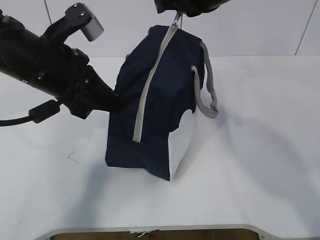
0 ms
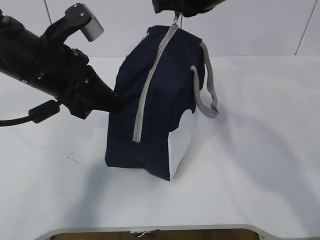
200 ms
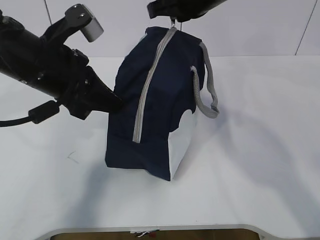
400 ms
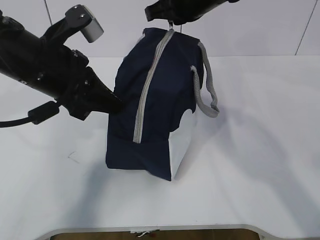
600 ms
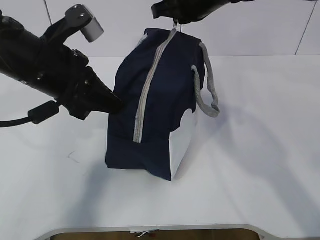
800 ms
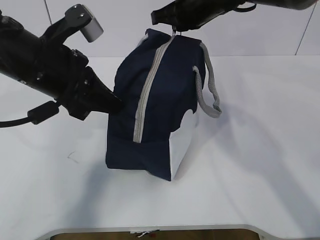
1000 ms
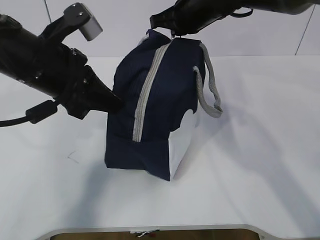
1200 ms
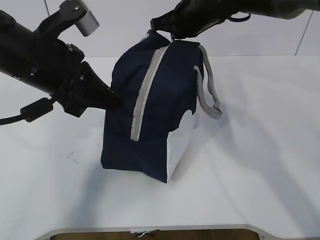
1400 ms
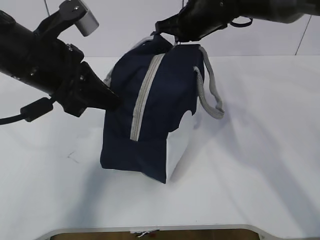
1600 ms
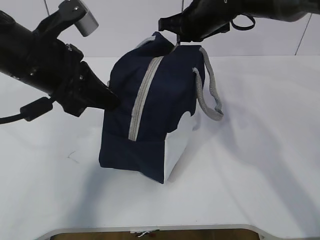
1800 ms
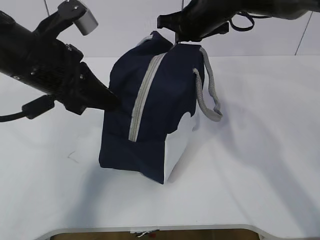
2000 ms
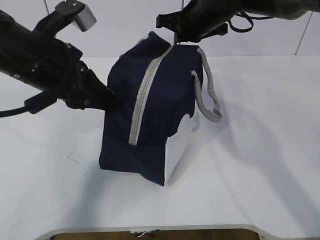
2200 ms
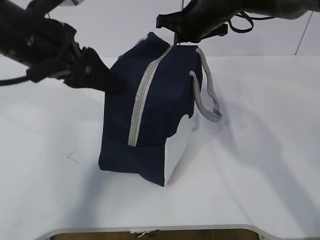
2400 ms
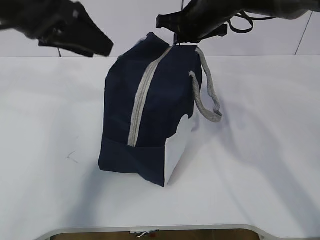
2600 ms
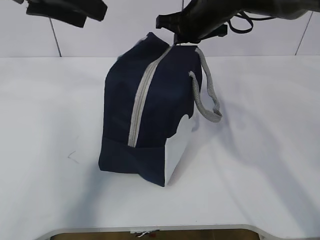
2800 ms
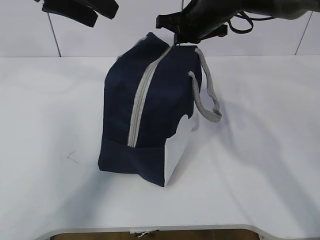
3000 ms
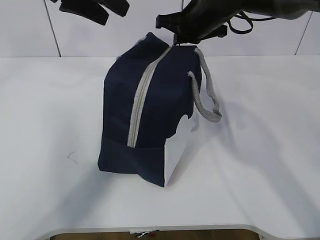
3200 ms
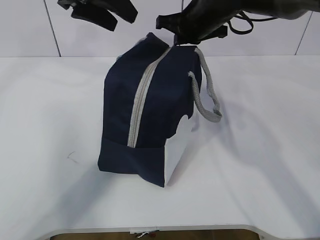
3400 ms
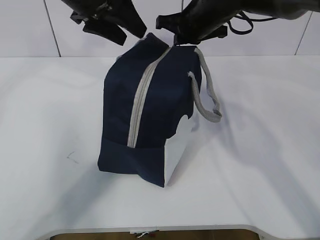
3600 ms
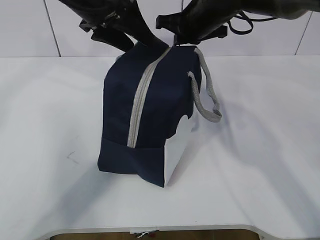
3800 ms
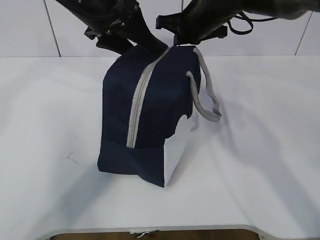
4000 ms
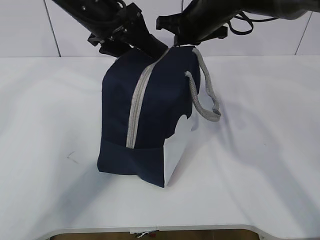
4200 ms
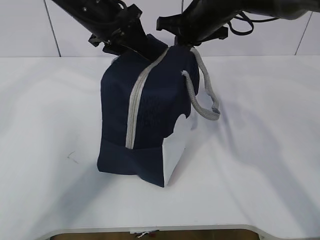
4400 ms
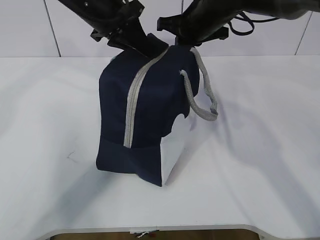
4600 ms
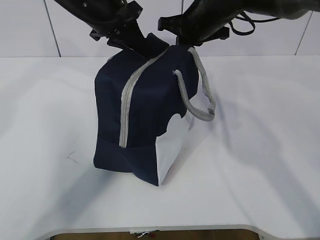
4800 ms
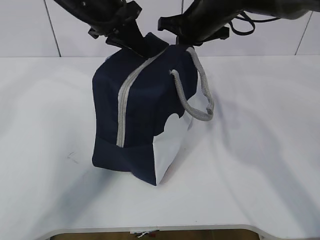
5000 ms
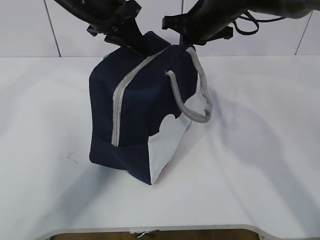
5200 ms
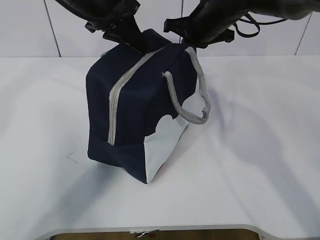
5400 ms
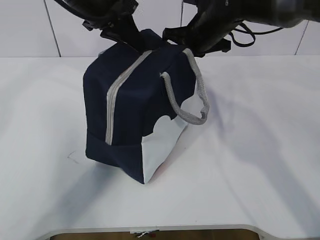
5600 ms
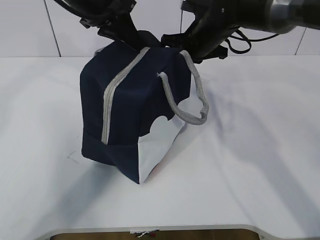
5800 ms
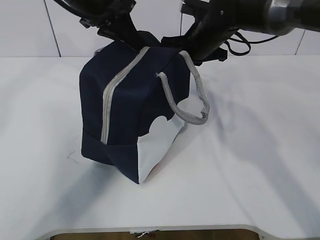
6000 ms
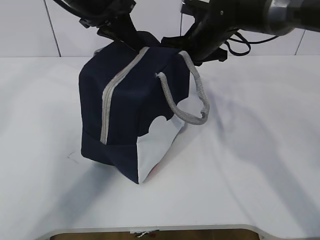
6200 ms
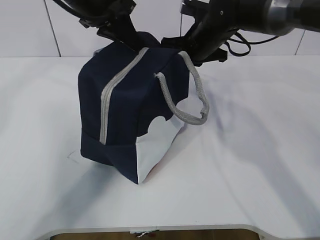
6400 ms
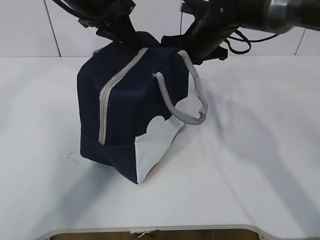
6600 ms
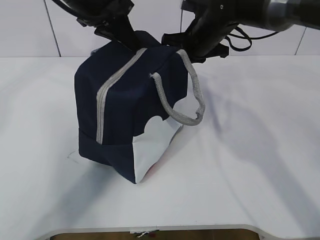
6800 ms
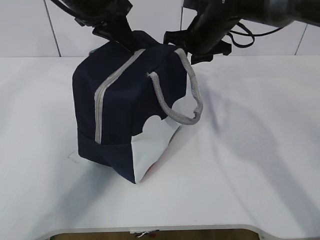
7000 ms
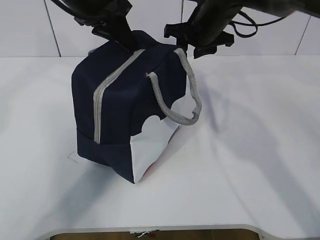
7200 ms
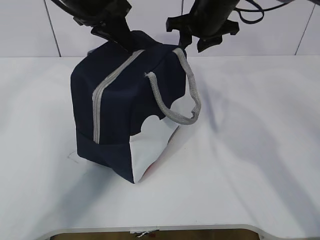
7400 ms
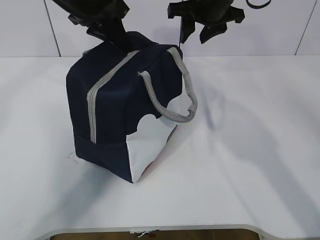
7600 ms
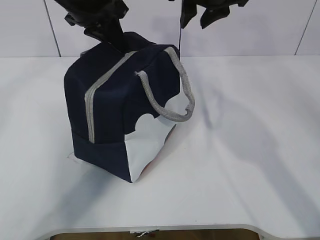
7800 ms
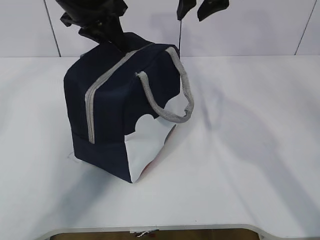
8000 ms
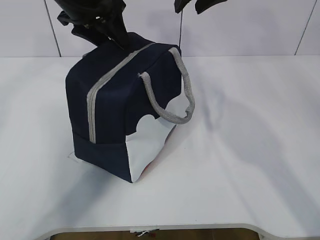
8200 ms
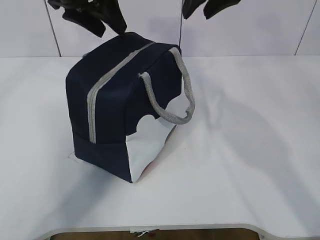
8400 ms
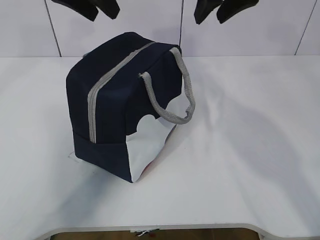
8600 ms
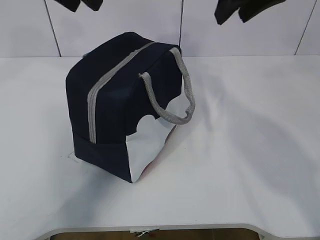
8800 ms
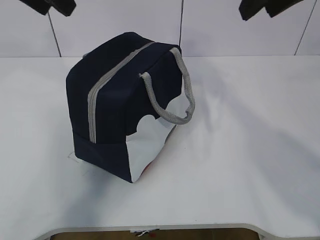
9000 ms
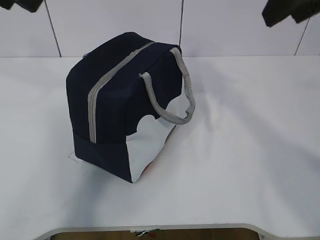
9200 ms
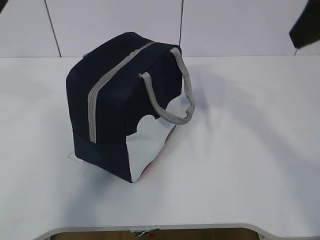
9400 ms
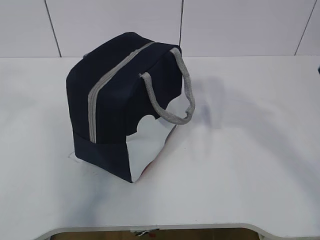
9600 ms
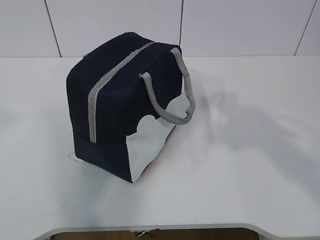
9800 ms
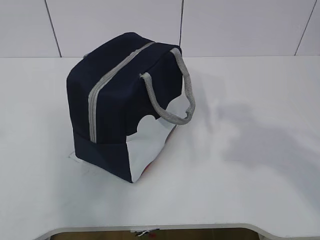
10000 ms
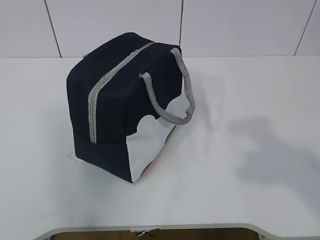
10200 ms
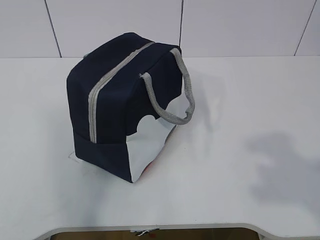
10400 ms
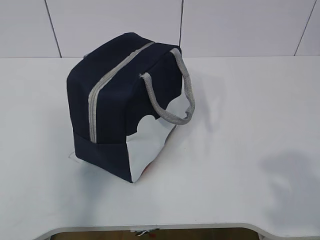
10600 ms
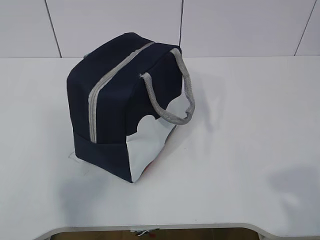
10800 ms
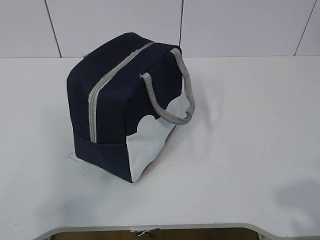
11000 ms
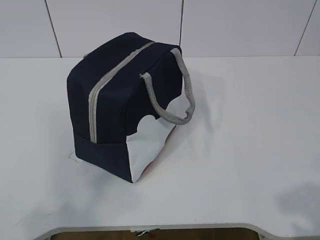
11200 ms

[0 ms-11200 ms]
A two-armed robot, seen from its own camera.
0 ms to 1600 ms: The right gripper heads forward and downward, covering roughly 15 cm.
1600 ms to 3200 ms: The left gripper goes about 15 cm forward and upward, and opens.
3200 ms to 4800 ms: The left gripper goes about 5 cm downward, and closes up.
4800 ms to 6400 ms: There are only small adjustments of the grippers.
6400 ms to 8000 ms: The left gripper opens up; the right gripper moves upward, about 15 cm, and opens.
8000 ms to 9600 ms: The left gripper travels backward, upward and to the left by about 30 cm, and opens, while the right gripper travels backward by approximately 25 cm.
9600 ms to 11200 ms: The two grippers go about 25 cm backward and downward.

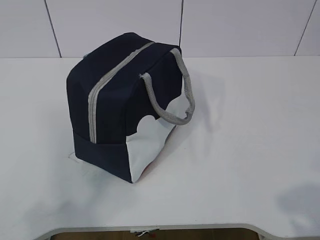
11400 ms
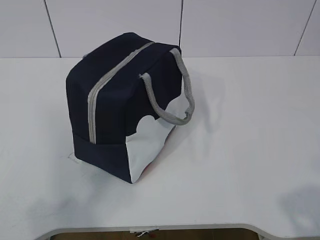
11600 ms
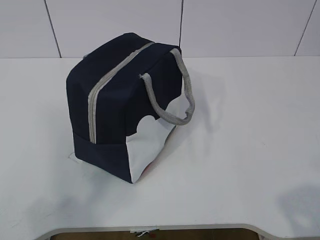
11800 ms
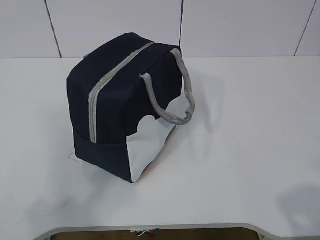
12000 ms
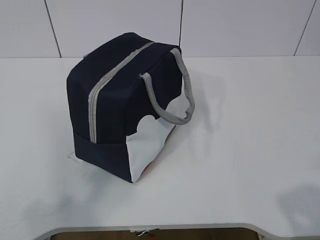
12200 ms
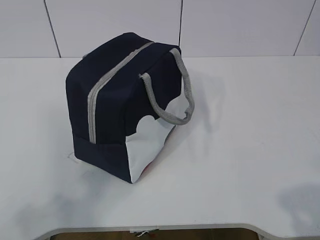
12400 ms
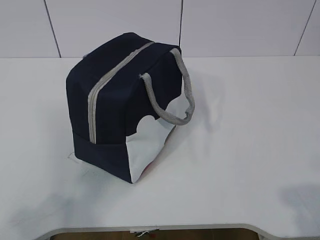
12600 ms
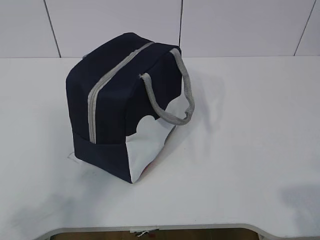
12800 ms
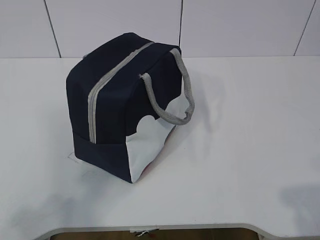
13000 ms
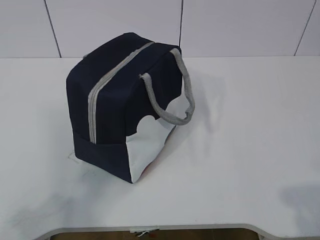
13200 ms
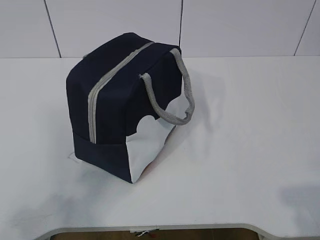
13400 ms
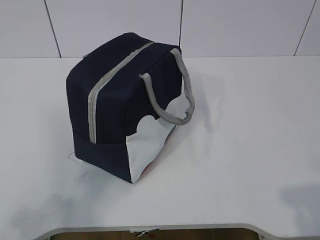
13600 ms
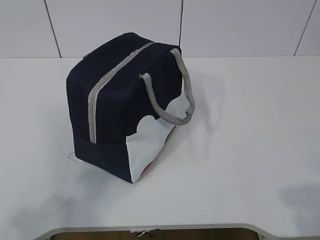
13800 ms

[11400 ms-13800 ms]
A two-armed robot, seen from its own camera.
12600 ms to 13800 ms: Both grippers stay put.

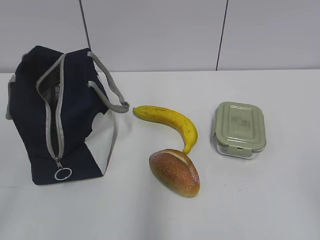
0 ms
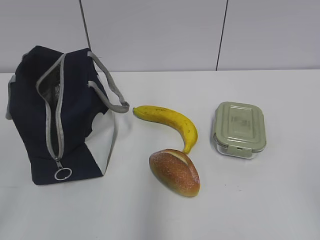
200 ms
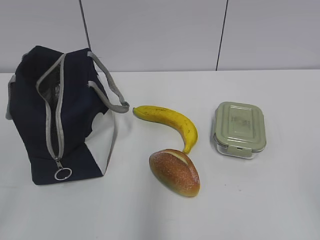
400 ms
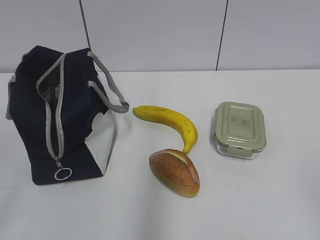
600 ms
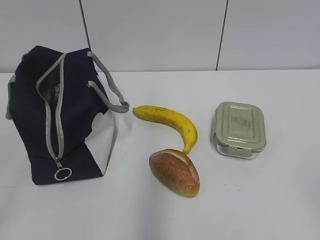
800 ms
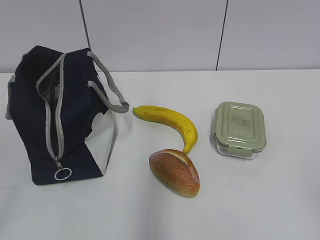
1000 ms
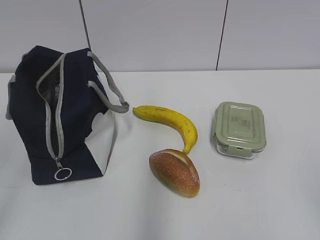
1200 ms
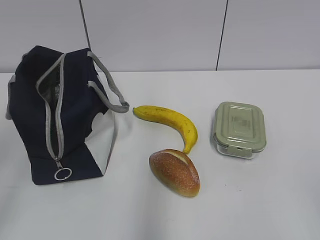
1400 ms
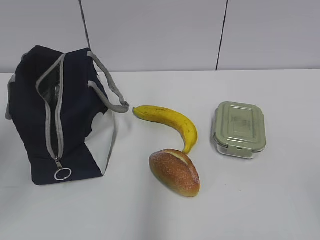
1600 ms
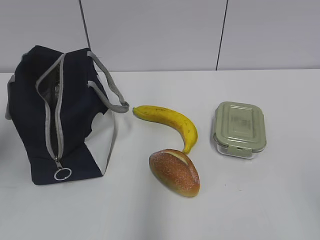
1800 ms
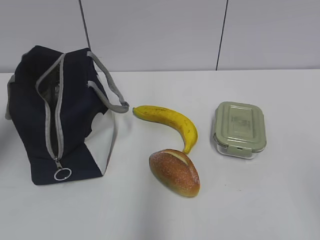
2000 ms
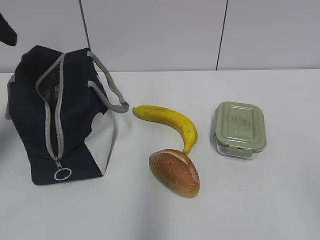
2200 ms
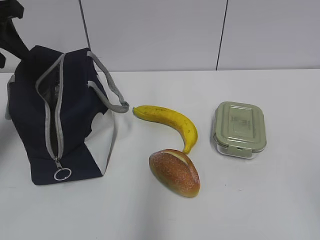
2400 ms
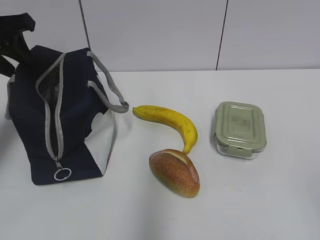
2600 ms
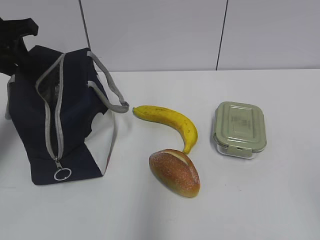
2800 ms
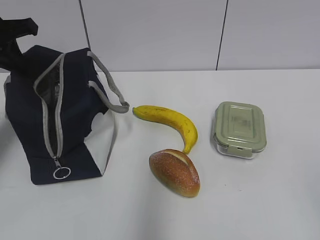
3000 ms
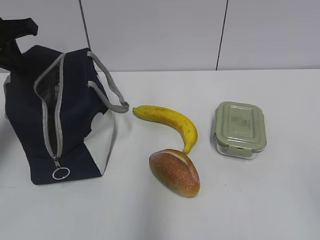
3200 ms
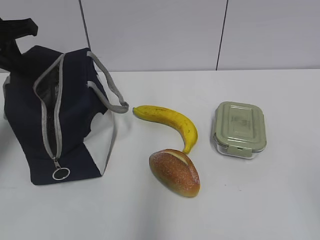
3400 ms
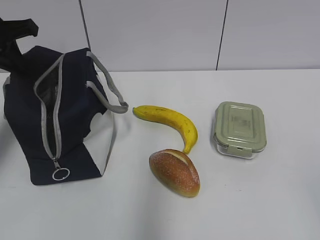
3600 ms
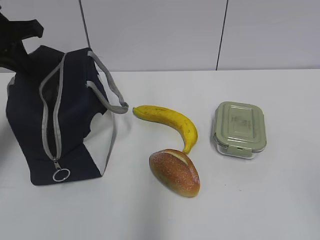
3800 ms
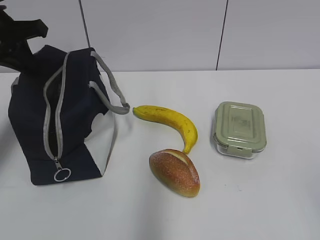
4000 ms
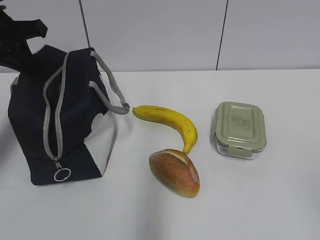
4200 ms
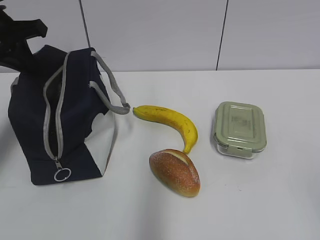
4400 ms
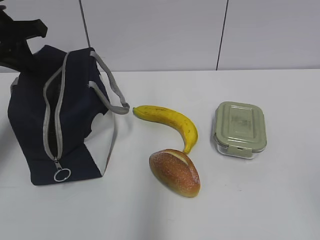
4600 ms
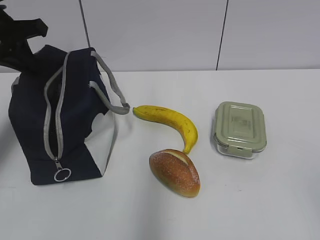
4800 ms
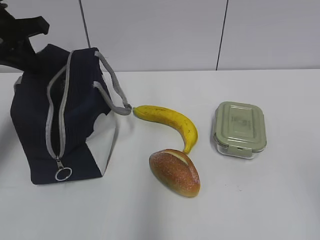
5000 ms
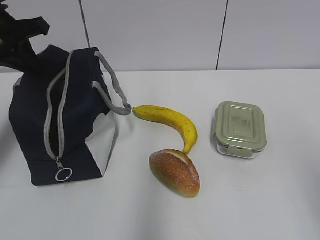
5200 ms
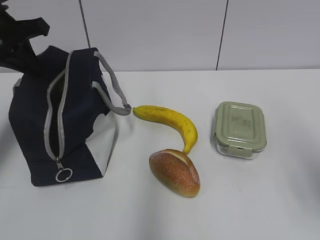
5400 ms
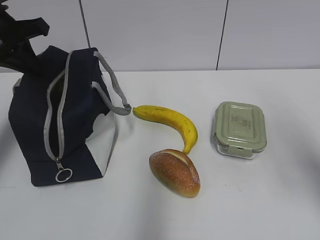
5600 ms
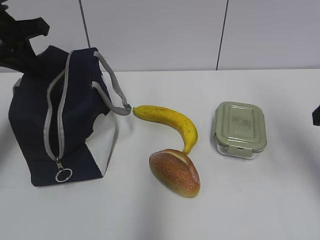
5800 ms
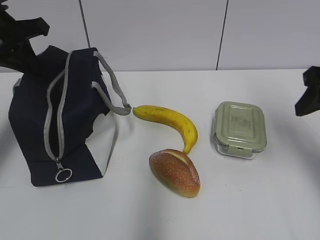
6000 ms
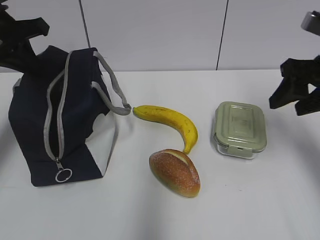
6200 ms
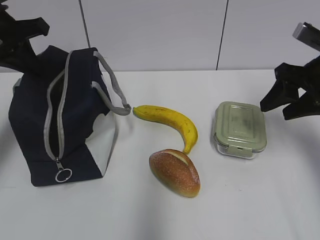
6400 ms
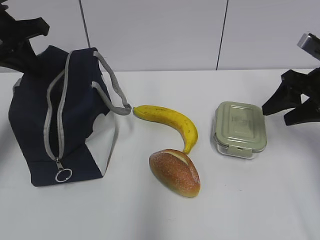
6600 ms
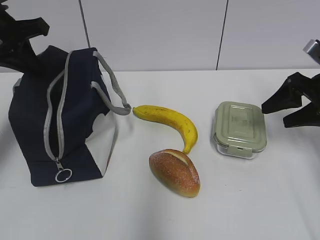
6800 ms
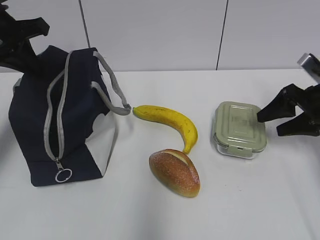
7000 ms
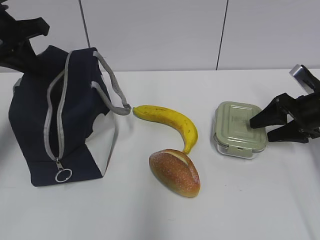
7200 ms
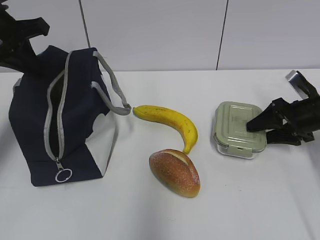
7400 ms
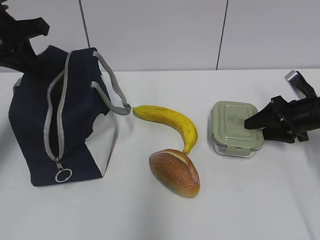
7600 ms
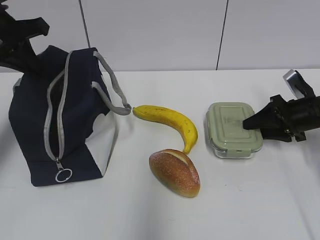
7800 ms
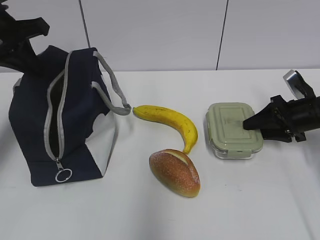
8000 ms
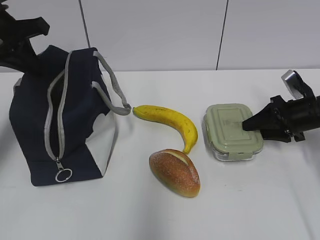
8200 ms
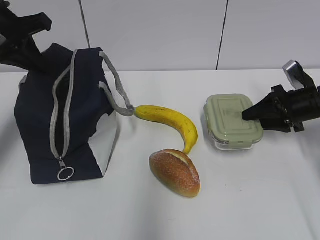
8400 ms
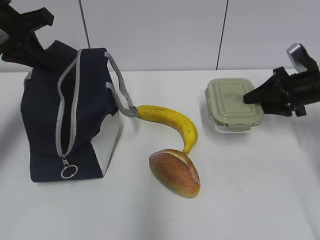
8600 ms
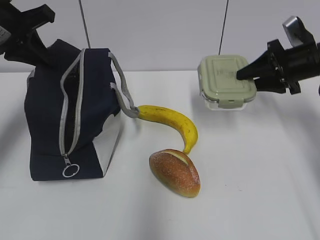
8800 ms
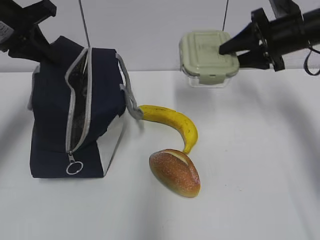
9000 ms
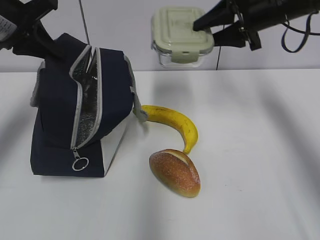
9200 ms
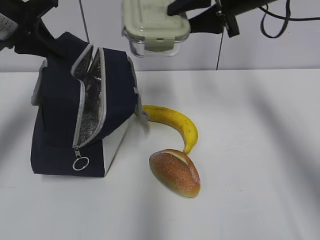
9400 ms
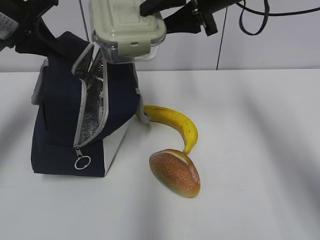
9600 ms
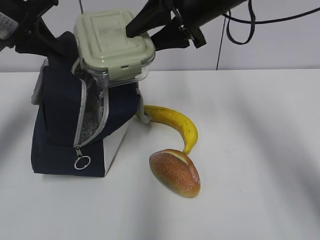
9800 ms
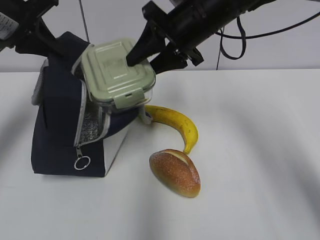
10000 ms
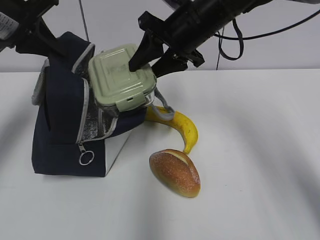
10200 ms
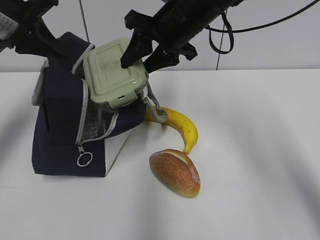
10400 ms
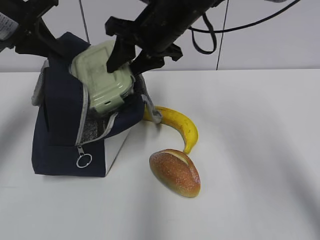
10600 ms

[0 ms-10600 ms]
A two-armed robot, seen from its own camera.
1600 ms to 3000 ms: The left gripper travels forward by roughly 25 cm, and closes its fingers.
3000 ms to 4600 ms: There are only small adjustments of the grippers.
4600 ms to 6000 ms: The right gripper goes approximately 25 cm forward.
6000 ms to 7600 ms: The right gripper travels downward and forward by approximately 20 cm.
7600 ms to 9000 ms: The right gripper is displaced upward and to the left by about 15 cm.
9000 ms to 10600 ms: The right gripper moves to the left, about 25 cm.
